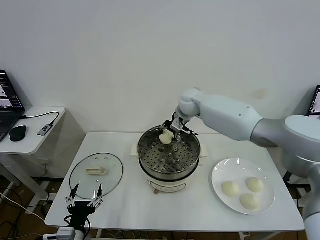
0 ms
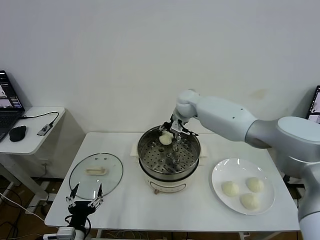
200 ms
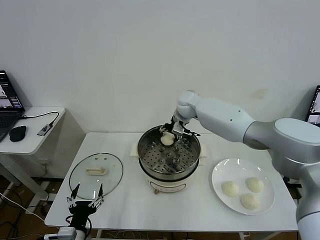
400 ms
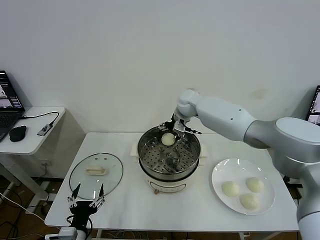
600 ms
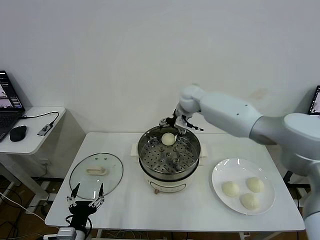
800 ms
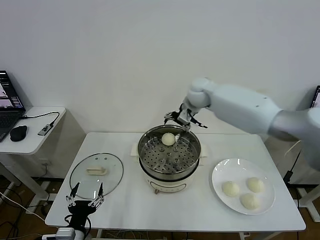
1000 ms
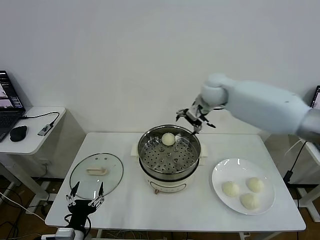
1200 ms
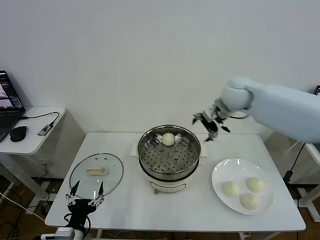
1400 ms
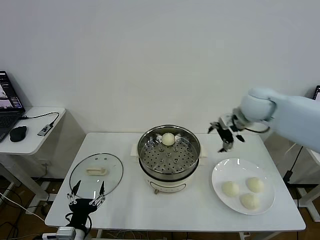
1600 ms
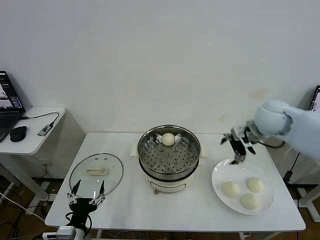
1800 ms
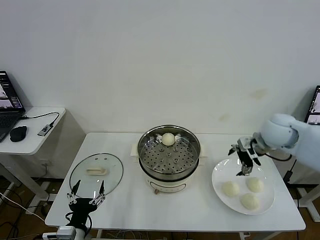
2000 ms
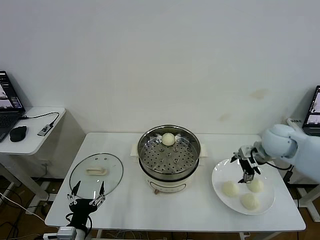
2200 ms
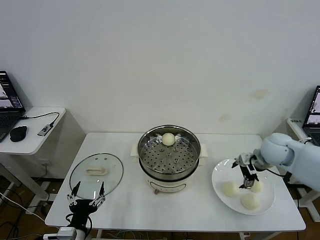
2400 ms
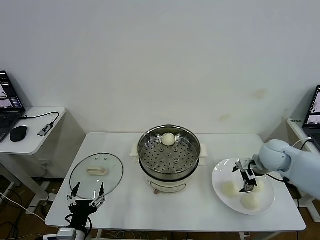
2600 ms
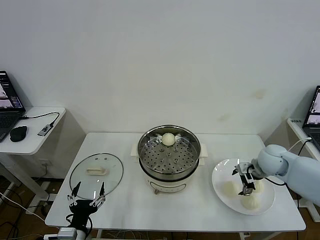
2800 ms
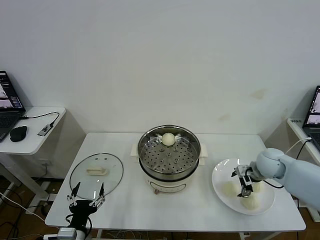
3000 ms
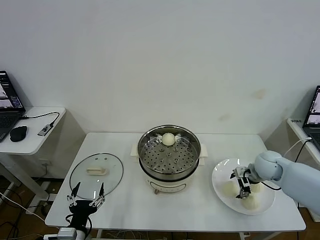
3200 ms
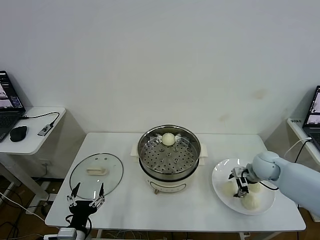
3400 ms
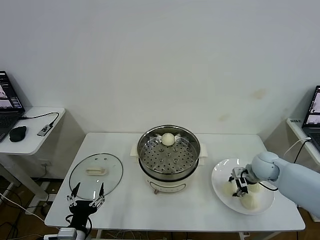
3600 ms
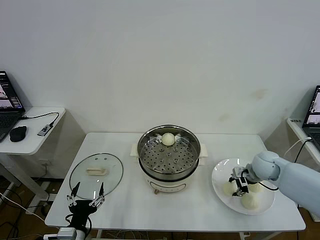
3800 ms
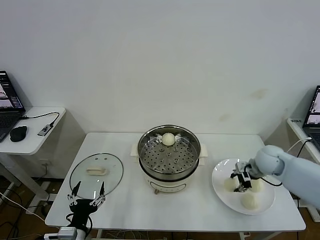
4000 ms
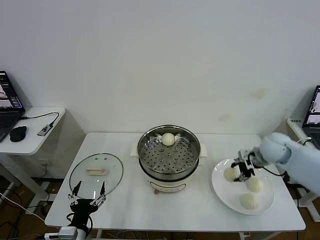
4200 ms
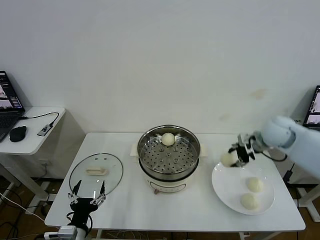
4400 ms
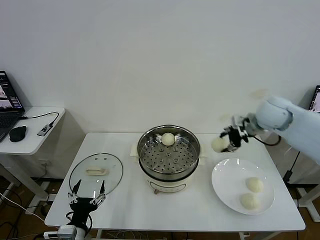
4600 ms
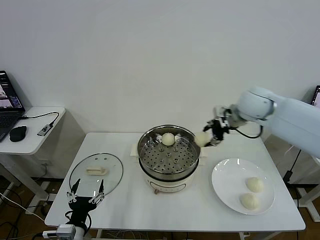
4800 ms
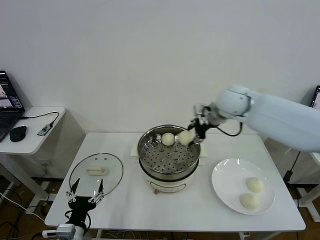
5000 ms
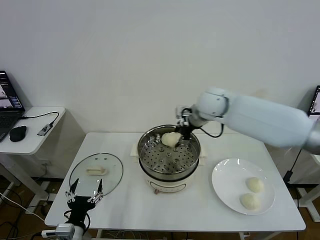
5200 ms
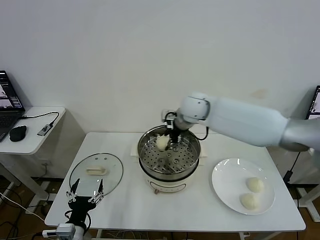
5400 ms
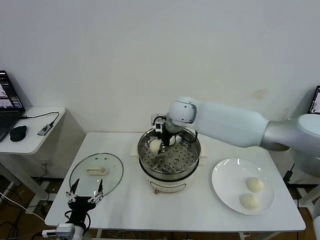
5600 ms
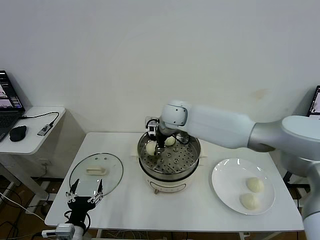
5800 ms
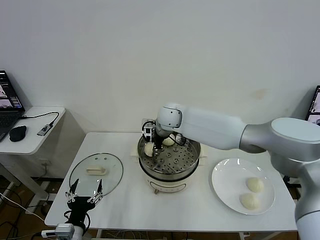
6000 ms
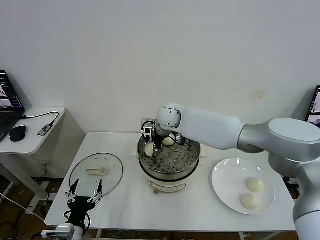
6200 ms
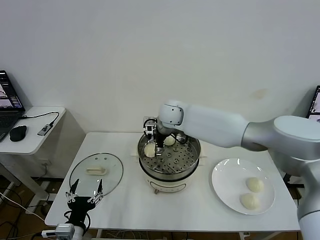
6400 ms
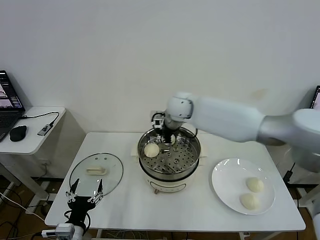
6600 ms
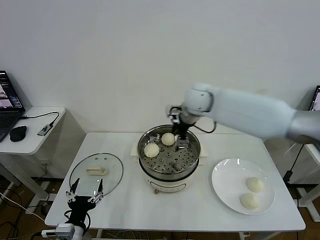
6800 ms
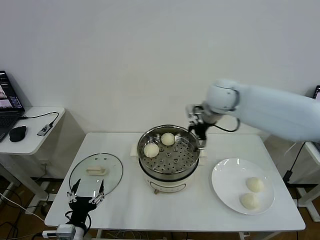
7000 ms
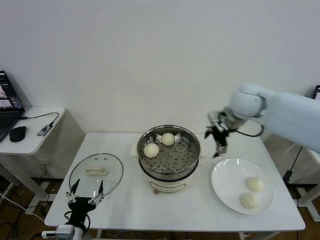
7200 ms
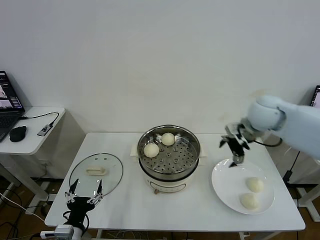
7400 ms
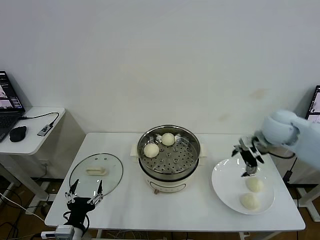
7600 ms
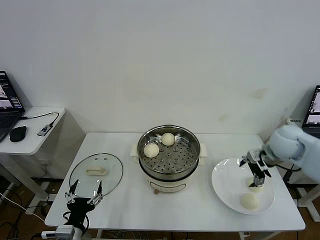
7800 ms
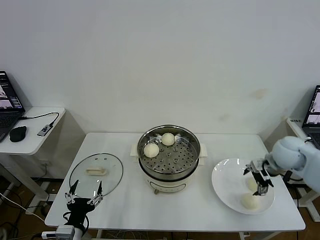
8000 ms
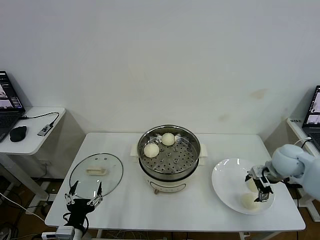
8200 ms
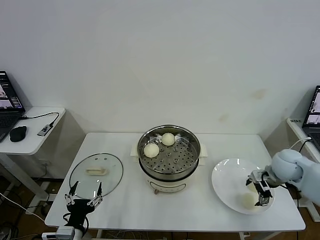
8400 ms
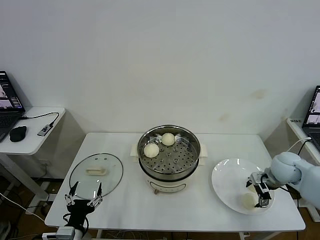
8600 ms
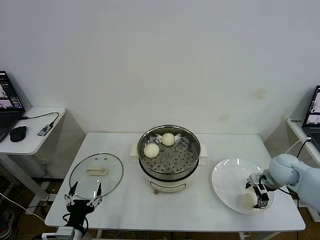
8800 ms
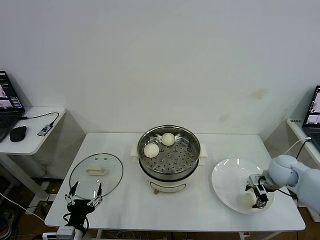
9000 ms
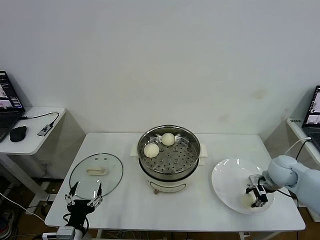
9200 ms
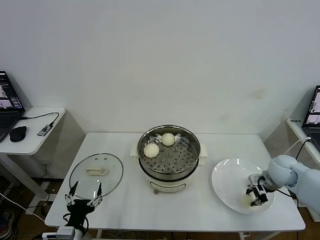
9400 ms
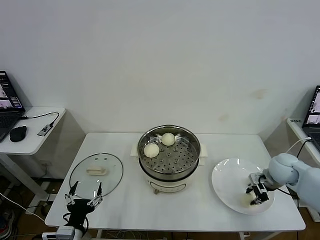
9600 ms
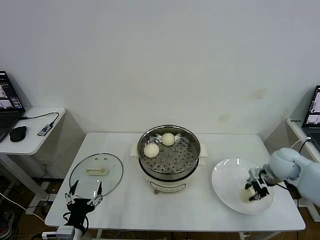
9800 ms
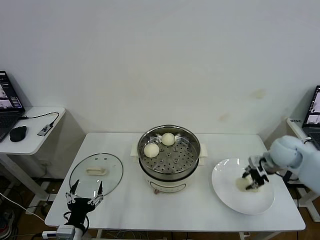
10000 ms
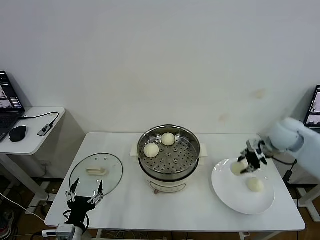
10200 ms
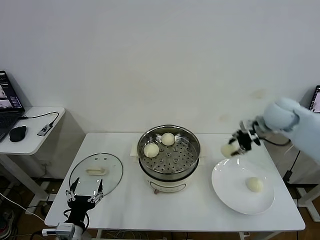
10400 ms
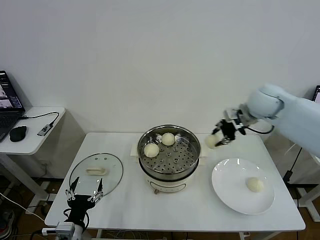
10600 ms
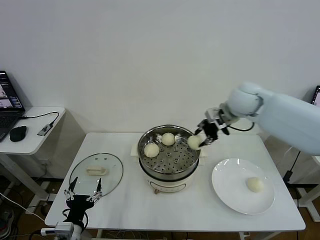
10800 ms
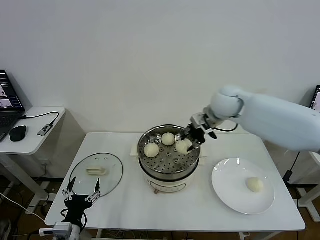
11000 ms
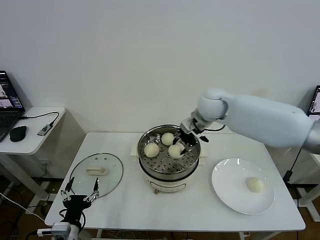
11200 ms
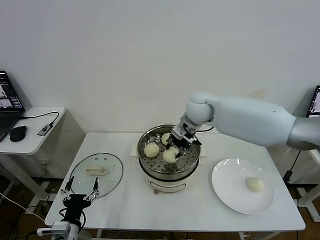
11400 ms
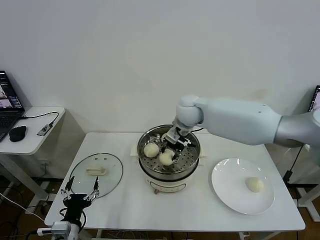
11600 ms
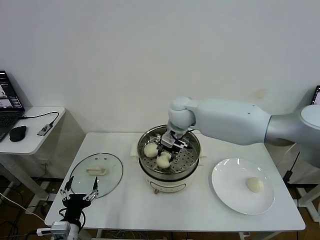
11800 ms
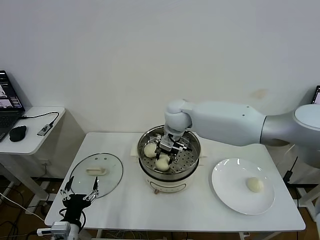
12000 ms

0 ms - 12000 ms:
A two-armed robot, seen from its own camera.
Task of the whole recording: take steamed baozi put them in steamer then cover it.
Step, 800 ms - 3600 ms: Grasp the baozi in the plate with right gripper.
Step, 3800 ms - 6400 ms: Place the baozi on the steamer with right gripper.
Step, 6600 ms - 9400 ms: Grasp the baozi in the plate with right gripper.
0 ms - 1600 ms: The right gripper shifts some 25 cm to the right and backward, and opens.
1600 ms - 3000 ms: The right gripper travels downward by about 20 cm.
3000 ms - 4400 ms: The right gripper moves upward, approximately 15 cm, and closes up.
4400 ms - 6000 ms: The right gripper moves to the left, about 30 cm.
6000 ms - 7600 ms: The right gripper moves to the right, roughly 35 cm, and opens up.
7600 ms - 9000 ms: The right gripper moves downward, roughly 15 cm, and closes its fingers.
9000 ms - 10400 ms: The right gripper moves upward and forward, approximately 20 cm, and closes.
10400 ms - 12000 ms: The right gripper moves to the left, about 30 cm.

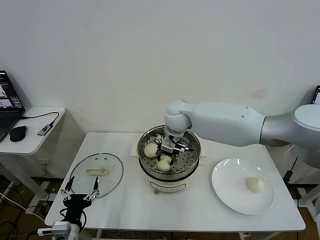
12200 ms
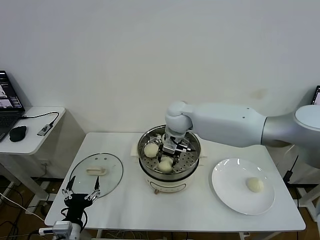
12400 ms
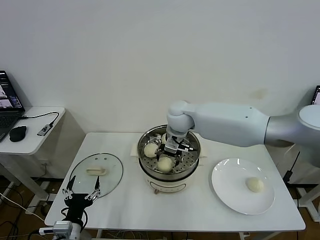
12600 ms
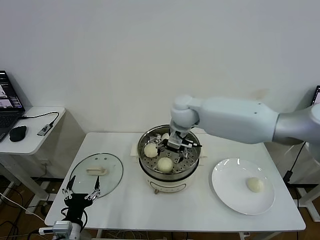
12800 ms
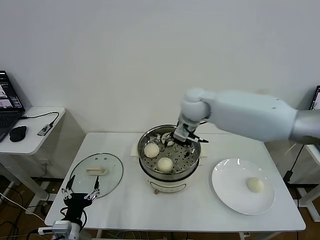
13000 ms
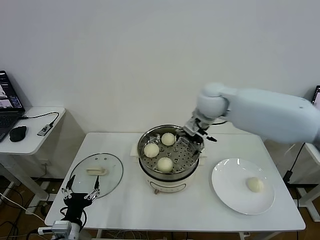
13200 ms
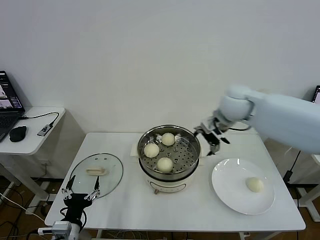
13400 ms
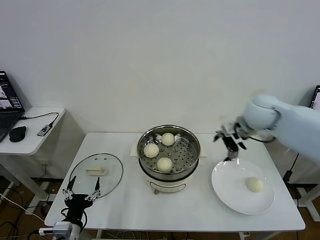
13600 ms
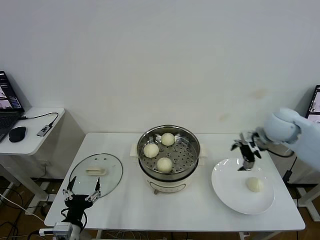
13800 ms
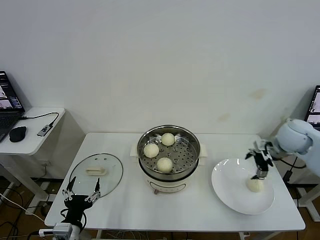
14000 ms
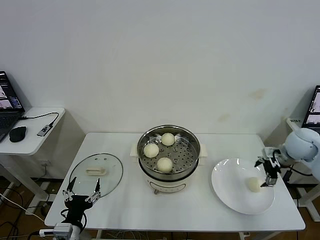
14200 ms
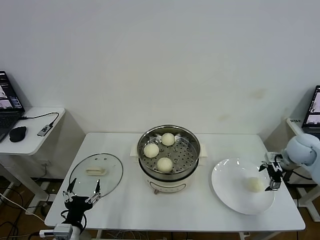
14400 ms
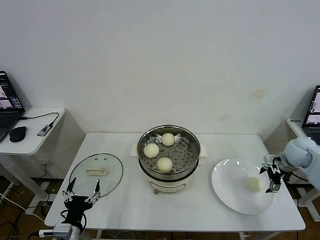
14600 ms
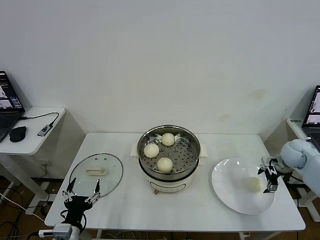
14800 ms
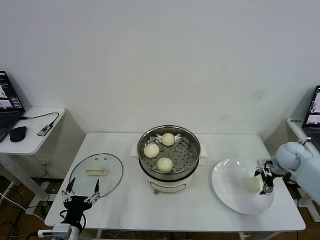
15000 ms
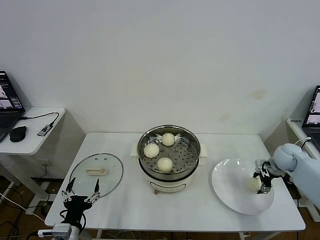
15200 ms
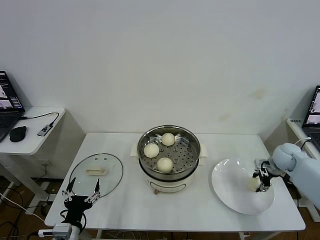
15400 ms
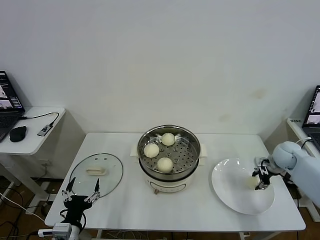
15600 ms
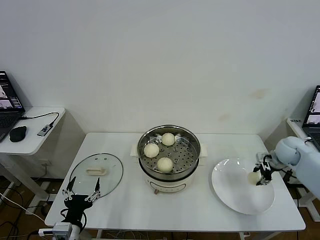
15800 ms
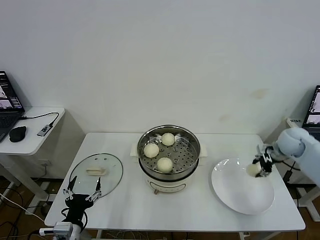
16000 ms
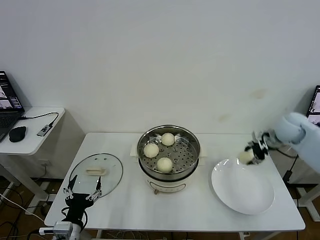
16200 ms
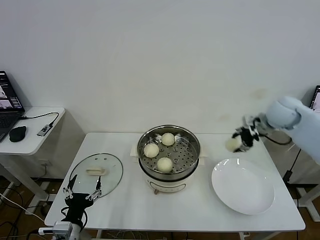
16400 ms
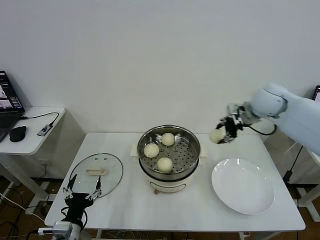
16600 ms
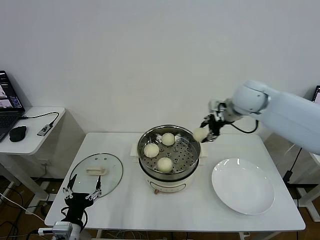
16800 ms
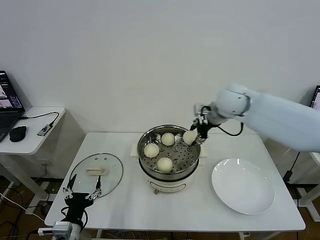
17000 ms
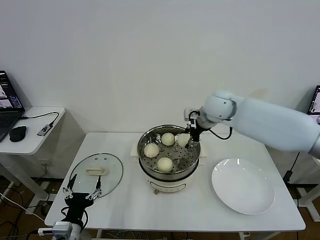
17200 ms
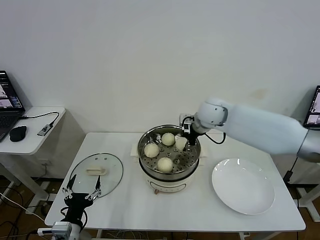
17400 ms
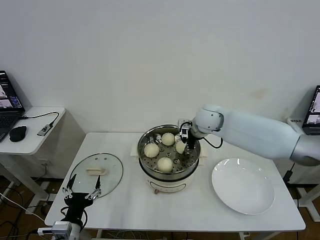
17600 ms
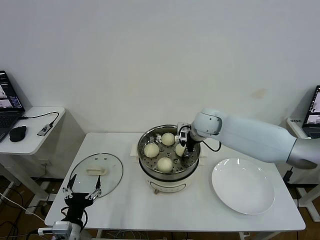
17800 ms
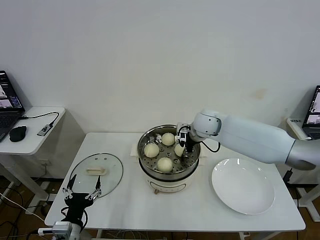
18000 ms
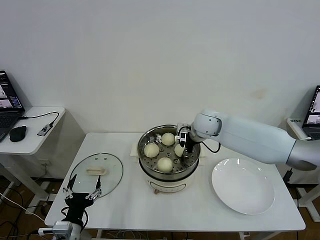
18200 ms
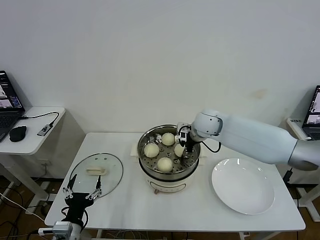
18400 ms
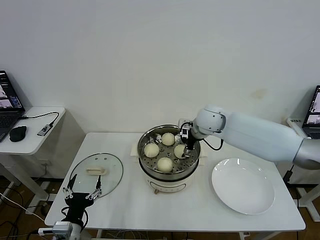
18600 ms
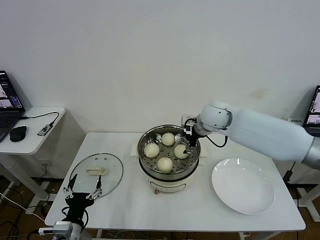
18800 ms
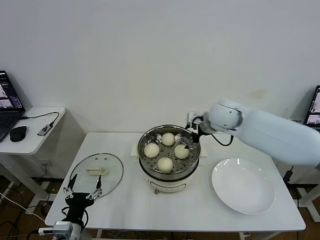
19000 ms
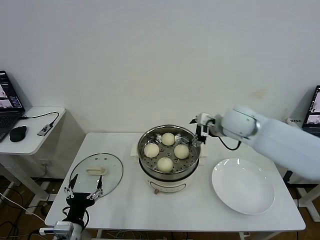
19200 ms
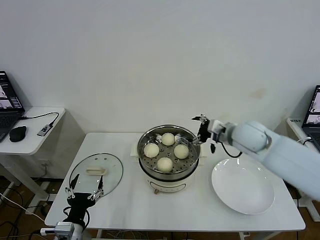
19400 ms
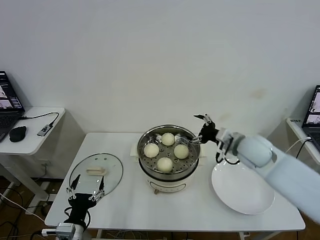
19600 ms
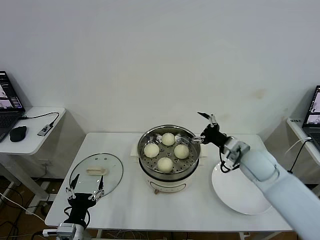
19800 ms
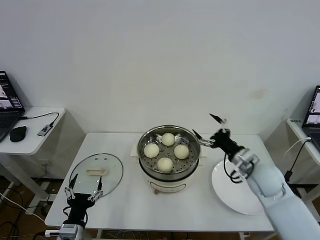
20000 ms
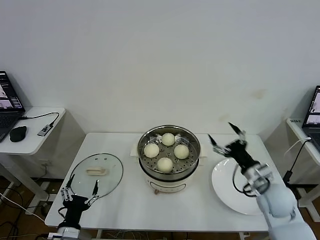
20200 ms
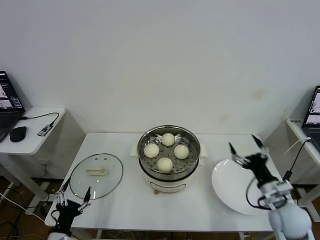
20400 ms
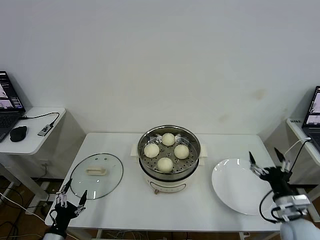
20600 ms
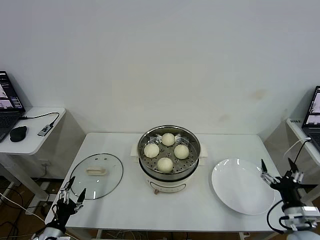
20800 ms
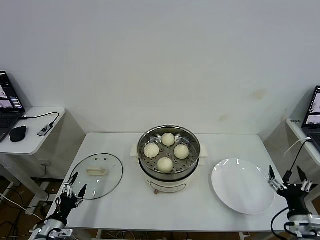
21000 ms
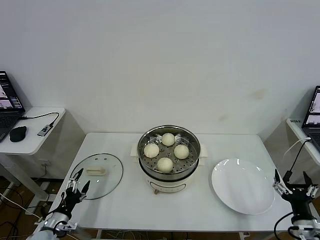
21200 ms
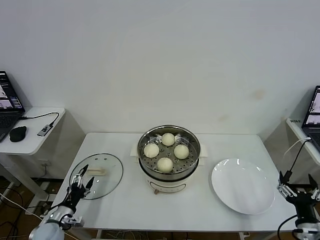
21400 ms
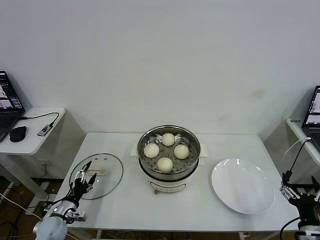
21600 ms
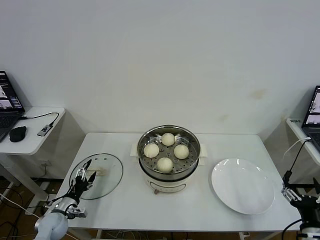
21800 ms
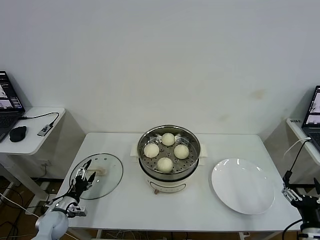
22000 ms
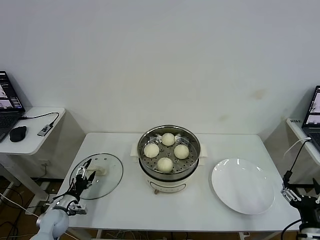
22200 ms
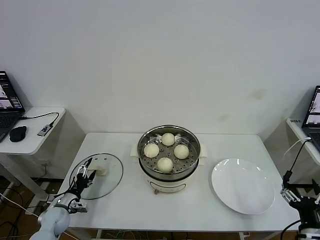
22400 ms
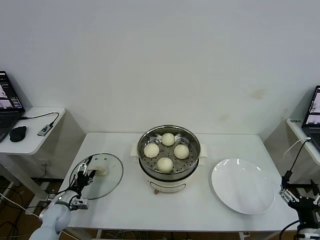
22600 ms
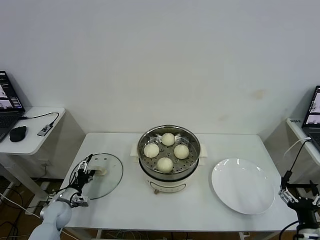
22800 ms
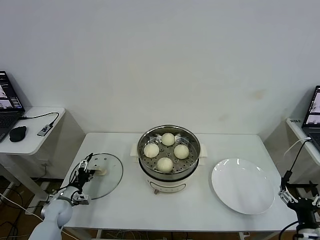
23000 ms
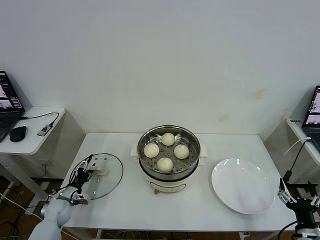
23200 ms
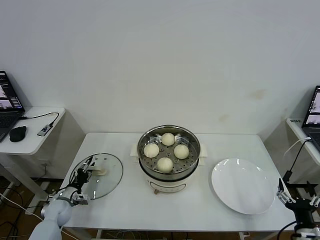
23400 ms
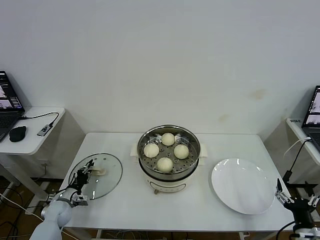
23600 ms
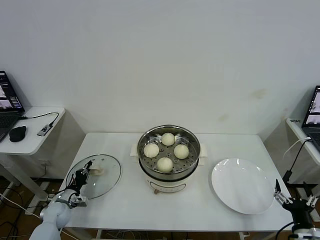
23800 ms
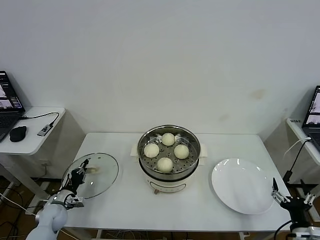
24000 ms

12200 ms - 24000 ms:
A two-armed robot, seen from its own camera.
Task of the whole recording: take steamed baozi put them in steamer then cover it.
Step, 13000 ms - 15400 ms: Grasp the baozi in the plate with right gripper.
Step, 15600 ms - 18800 ms: Place the baozi on the steamer with right gripper.
Step, 19000 ms - 23800 ms: Grasp the pot lid with left gripper.
12200 ms - 13600 ms: The right gripper is displaced to the right by some 25 cm, and opens.
13600 ms - 15200 ms: The right gripper shifts some 25 cm downward and to the right.
15200 ms - 16600 ms: The right gripper travels upward and to the left by approximately 30 cm, and closes its fingers.
16600 ms - 18200 ms: The right gripper moves to the left and downward, roughly 20 cm.
18200 ms - 19600 ms: The right gripper heads to the right and backward, covering some 15 cm, and opens its fingers.
19600 ms - 21000 ms: The right gripper travels backward, downward and to the right by some 30 cm. The left gripper is displaced to the left and downward by some 15 cm.
21000 ms - 22600 ms: The left gripper moves forward, some 15 cm.
22600 ms - 24000 ms: The left gripper closes.
